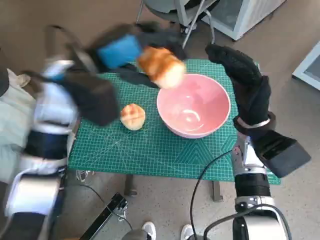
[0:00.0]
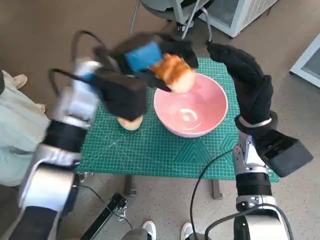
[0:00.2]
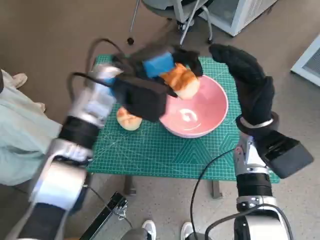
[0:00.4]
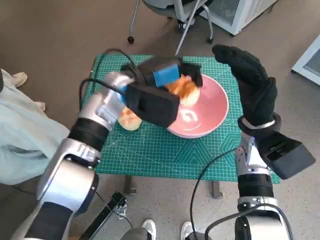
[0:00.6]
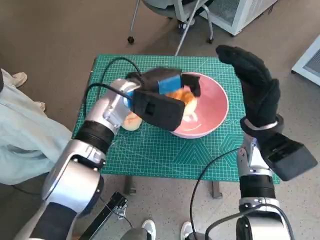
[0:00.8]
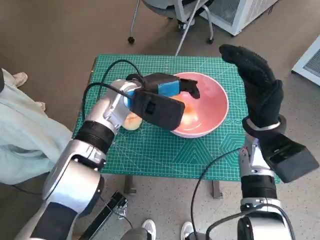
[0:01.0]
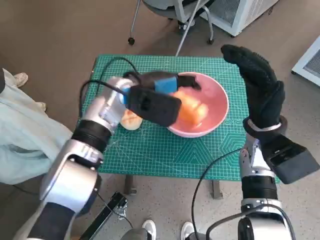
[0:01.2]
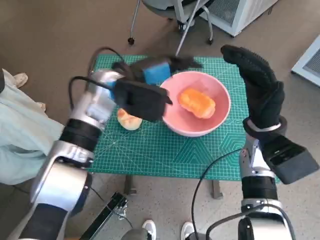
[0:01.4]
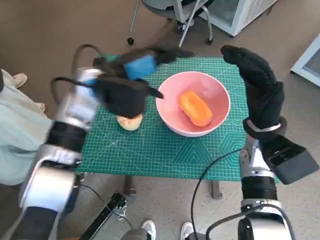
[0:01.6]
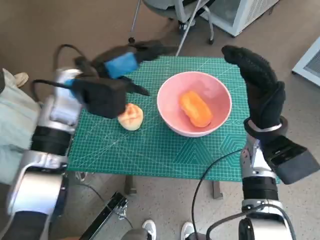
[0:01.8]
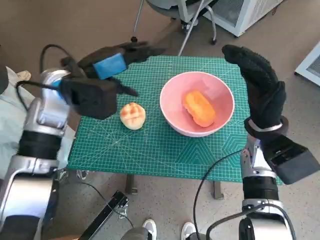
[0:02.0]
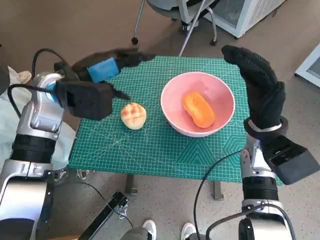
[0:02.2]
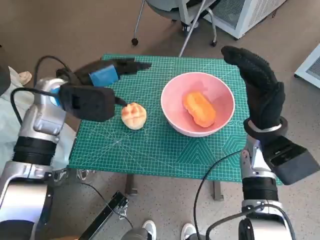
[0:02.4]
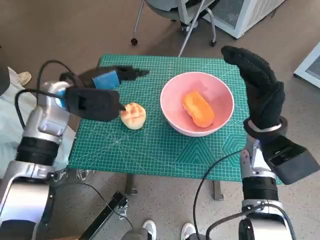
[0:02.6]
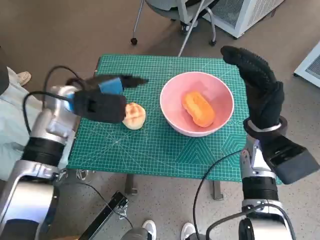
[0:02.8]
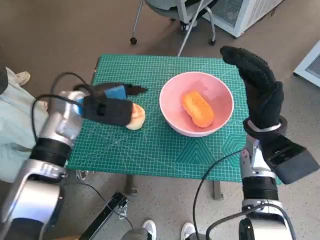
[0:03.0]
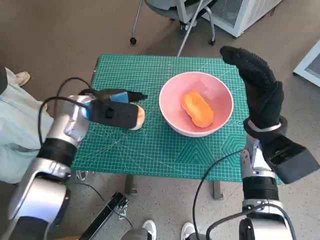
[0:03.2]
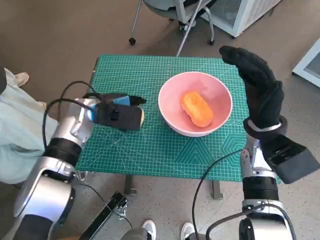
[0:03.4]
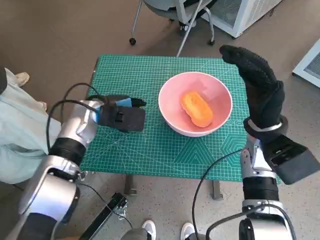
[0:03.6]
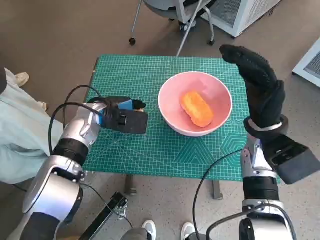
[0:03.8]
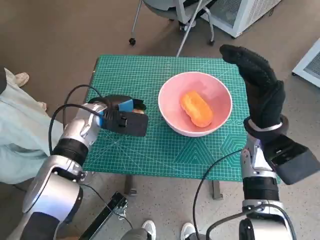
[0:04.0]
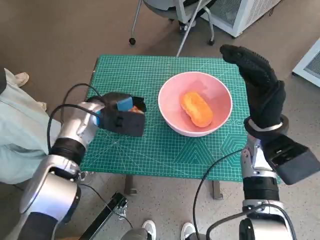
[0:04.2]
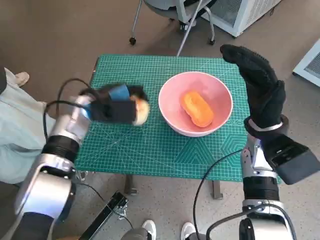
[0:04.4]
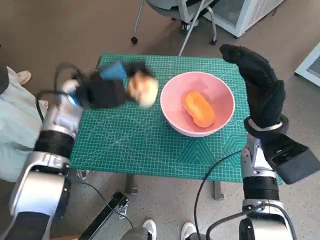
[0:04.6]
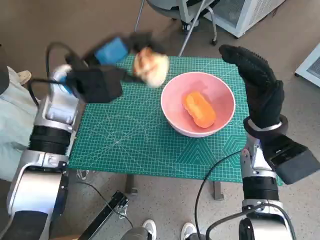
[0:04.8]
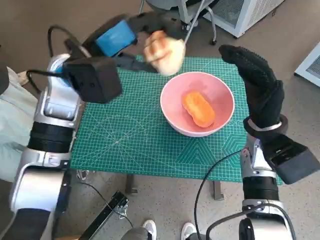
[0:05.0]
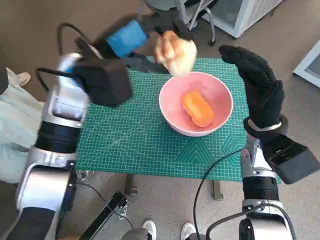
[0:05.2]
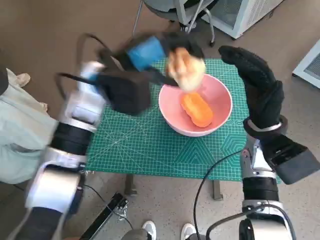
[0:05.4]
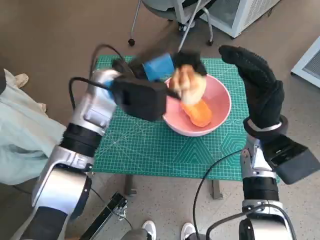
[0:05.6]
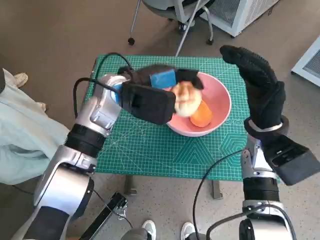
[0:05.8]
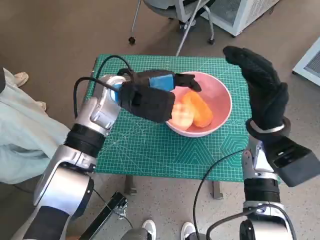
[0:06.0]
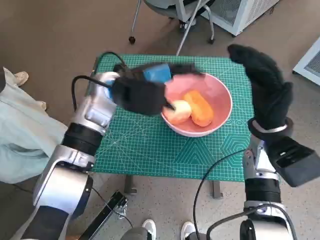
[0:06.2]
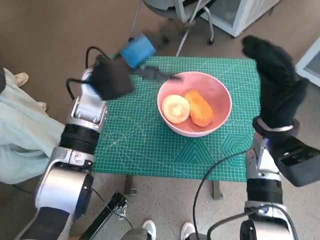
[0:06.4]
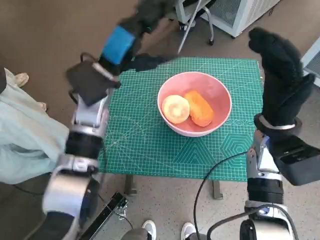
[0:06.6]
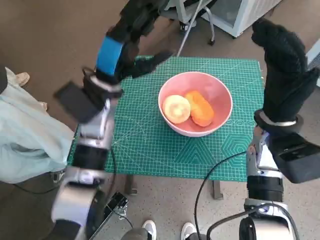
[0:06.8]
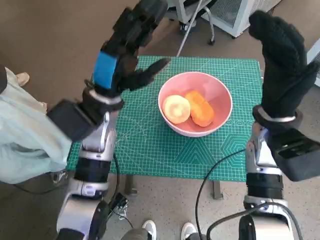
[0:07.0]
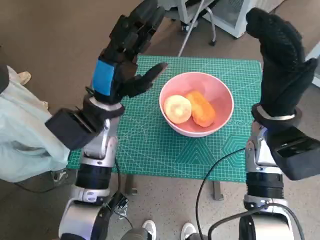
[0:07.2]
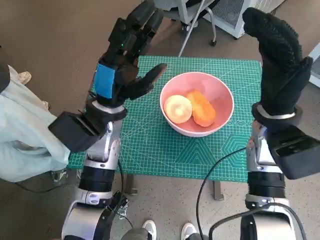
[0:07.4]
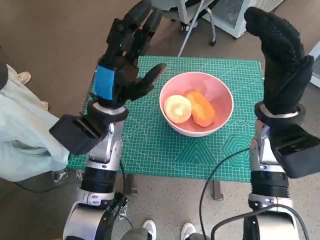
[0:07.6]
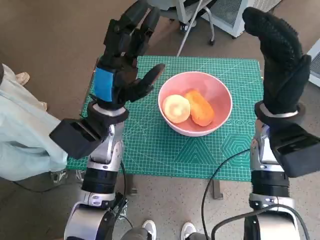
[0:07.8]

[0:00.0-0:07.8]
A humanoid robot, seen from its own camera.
Task of the whole recording: Push the bowl to the center of the table and put the bread into the bowl.
Step, 0:00.0 to 0:01.2: Place the long bread in pink bowl with left hand.
Step, 0:01.4 to 0:04.0: Grasp the round bread with left hand.
Step, 0:04.2 to 0:06.0: Place the round bread in pink bowl with left hand.
0:00.0 to 0:01.6: The left hand shifts some 5 cm downward.
0:01.6 to 0:03.2: The left hand moves downward and to the left, approximately 10 cm.
0:04.6 to 0:06.2: The left hand goes some 10 cm to the right.
0:06.2 to 0:07.8: The left hand is displaced backward by roughly 5 cm.
